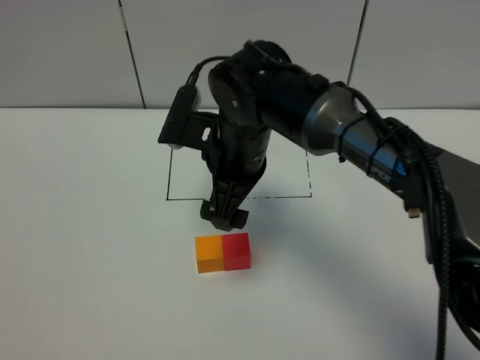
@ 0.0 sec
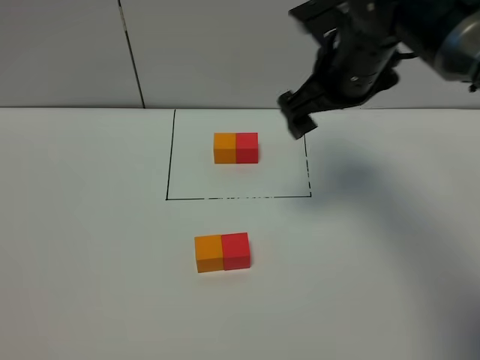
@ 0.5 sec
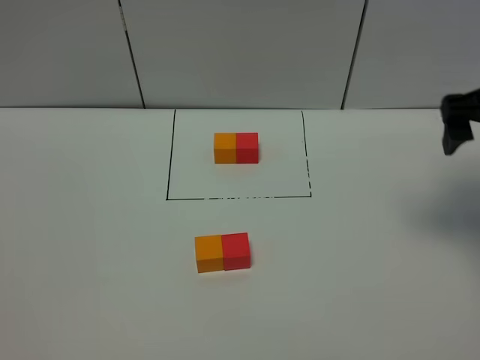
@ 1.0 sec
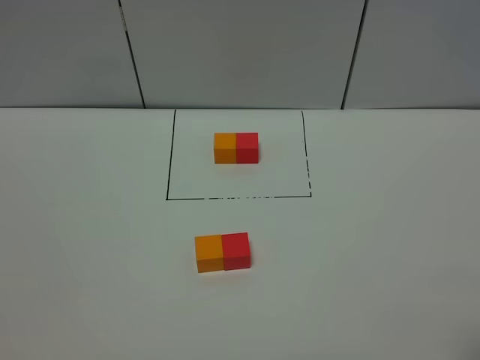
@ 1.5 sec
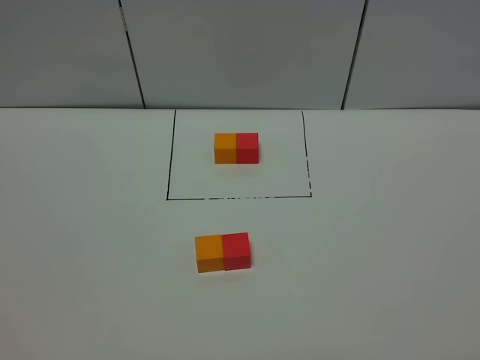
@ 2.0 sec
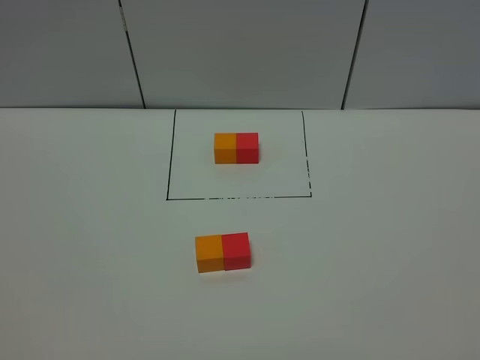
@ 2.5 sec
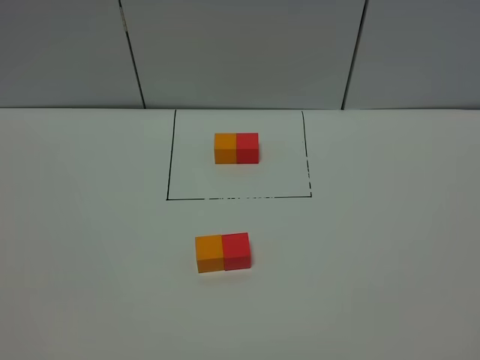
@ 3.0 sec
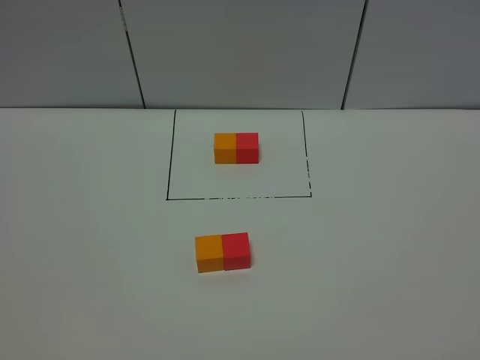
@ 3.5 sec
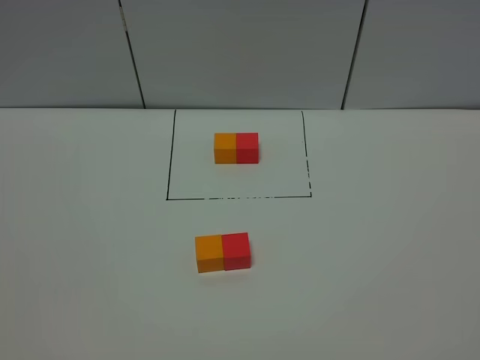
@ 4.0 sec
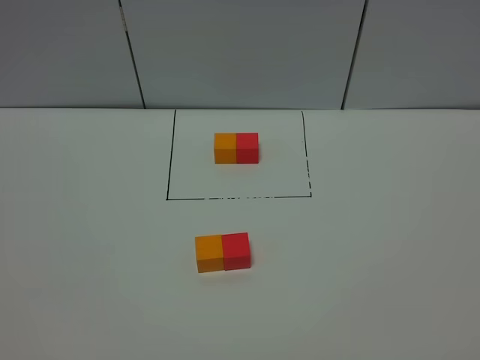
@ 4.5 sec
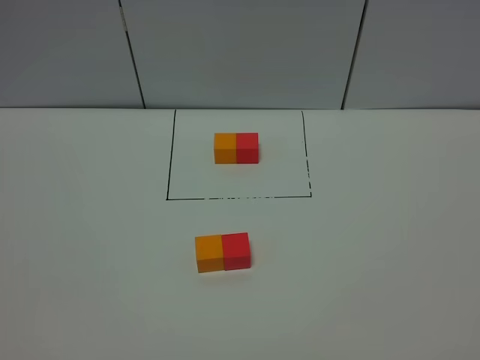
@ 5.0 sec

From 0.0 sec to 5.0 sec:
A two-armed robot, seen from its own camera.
Task of the whole recording: According to the building block template in front, assemble the scattered blocks together.
From 0.0 sec to 2.5 sec: The right gripper shifts approximately 50 cm backward and to the right.
